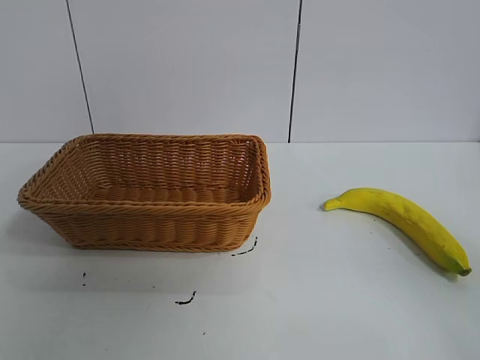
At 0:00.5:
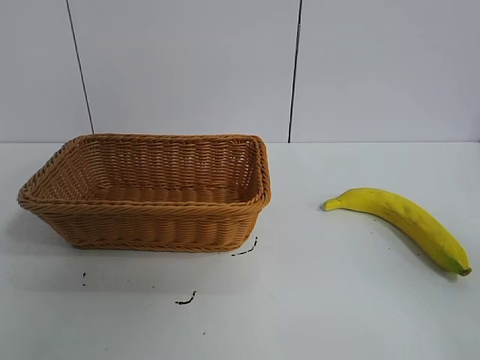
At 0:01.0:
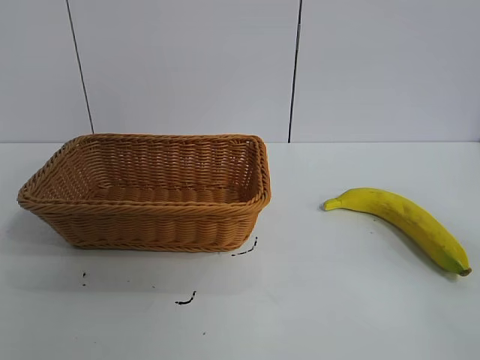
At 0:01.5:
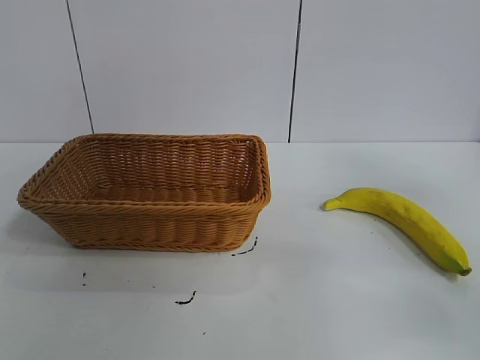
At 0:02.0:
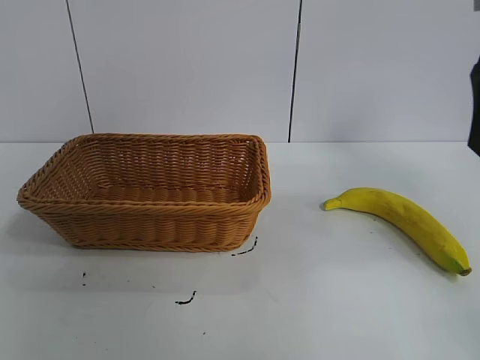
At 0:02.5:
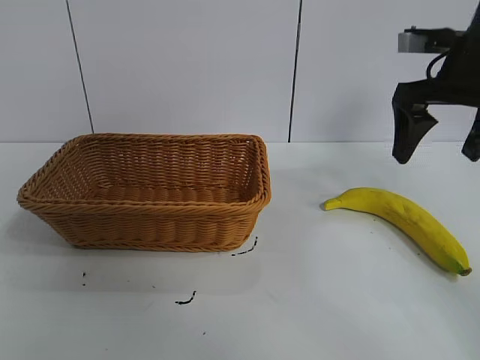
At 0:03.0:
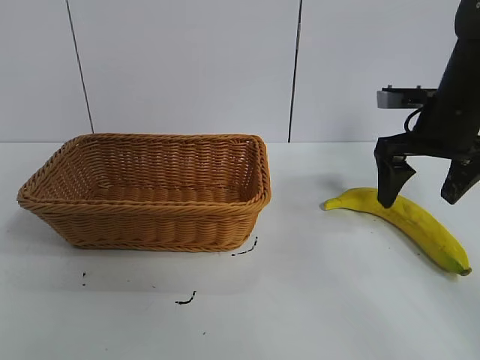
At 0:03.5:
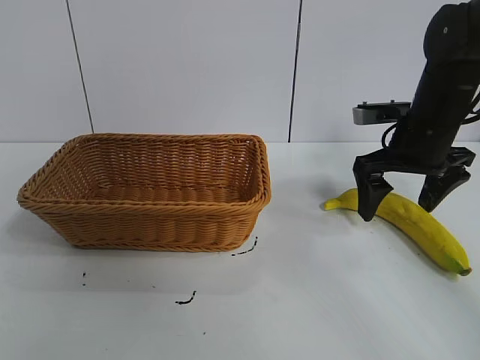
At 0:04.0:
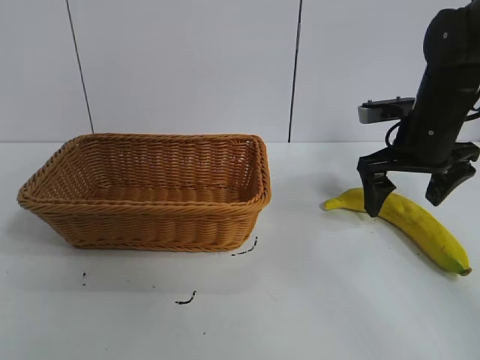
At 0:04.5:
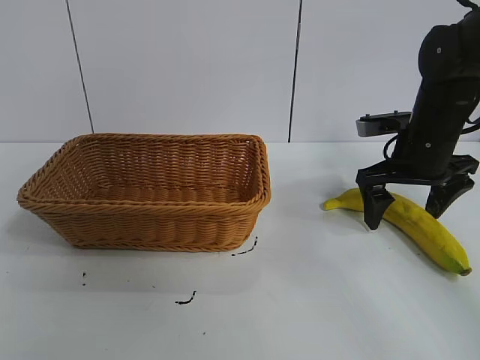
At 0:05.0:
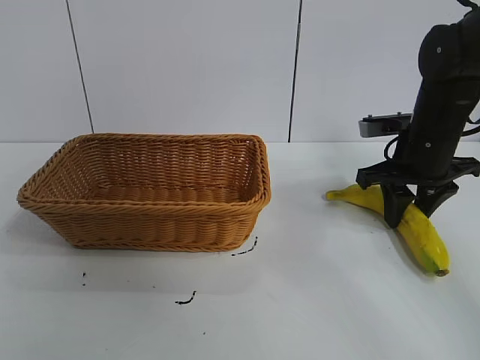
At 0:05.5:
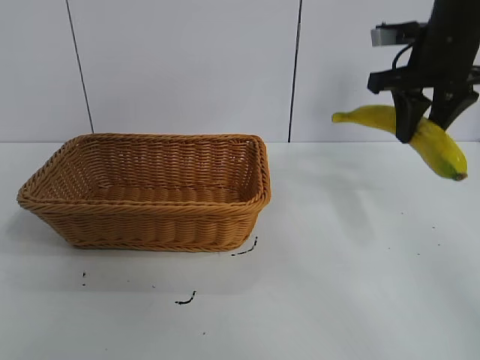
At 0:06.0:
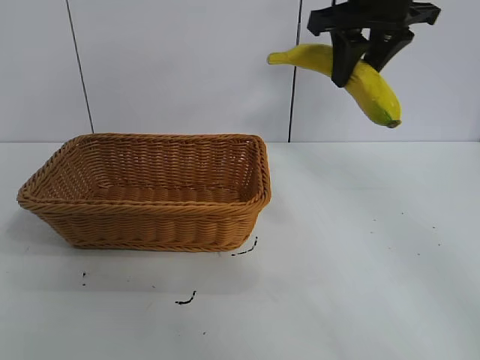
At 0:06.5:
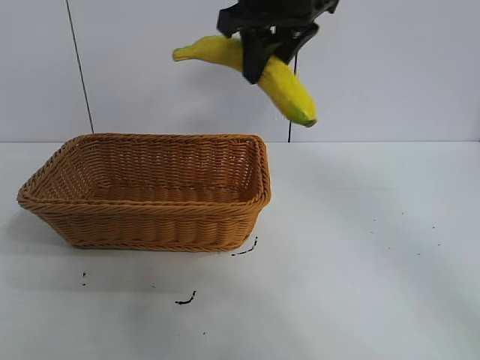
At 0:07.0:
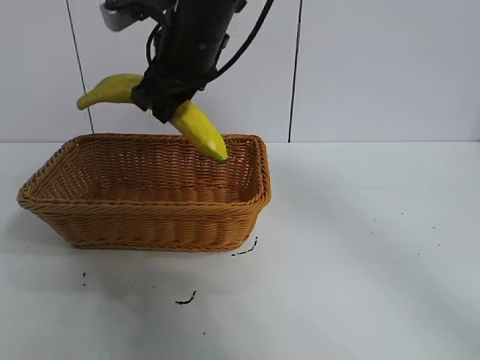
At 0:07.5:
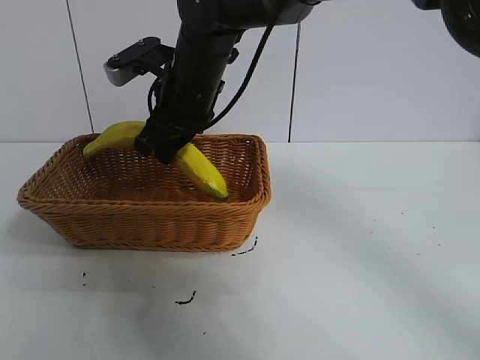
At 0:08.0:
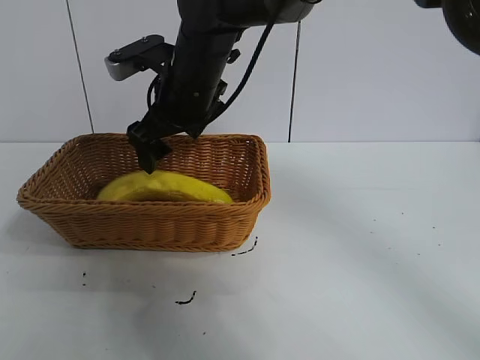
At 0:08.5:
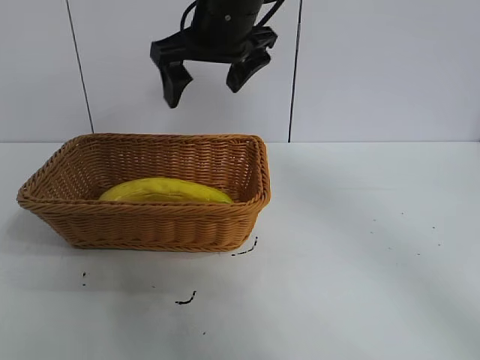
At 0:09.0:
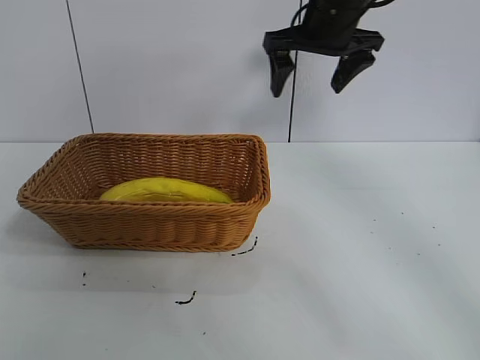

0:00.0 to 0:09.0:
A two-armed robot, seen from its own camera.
Task of the whole recording: pick up the banana and put it into the basket.
Step, 0:01.0 to 0:05.0: Grasp the banana with right gripper.
Step, 0:05.5 to 0:07.5: Place the banana in the basket with right gripper.

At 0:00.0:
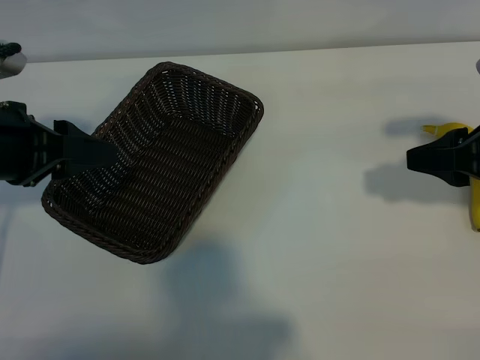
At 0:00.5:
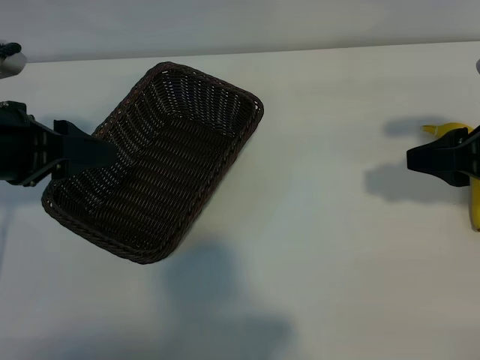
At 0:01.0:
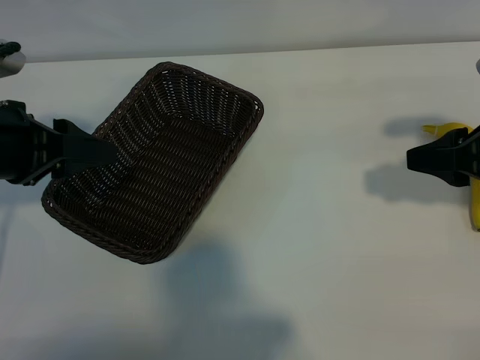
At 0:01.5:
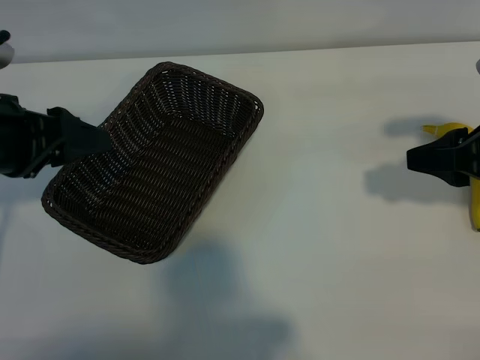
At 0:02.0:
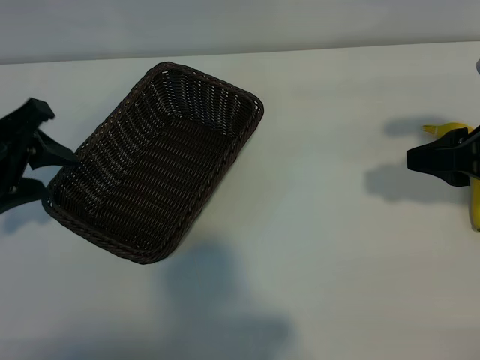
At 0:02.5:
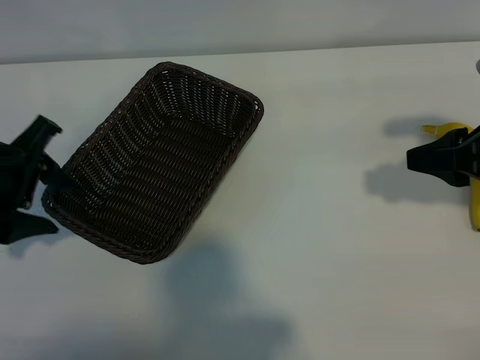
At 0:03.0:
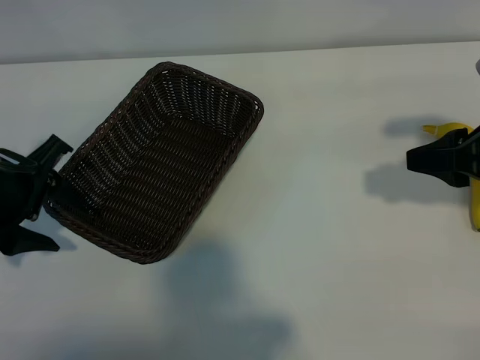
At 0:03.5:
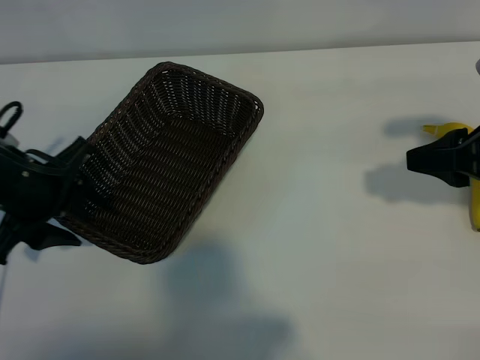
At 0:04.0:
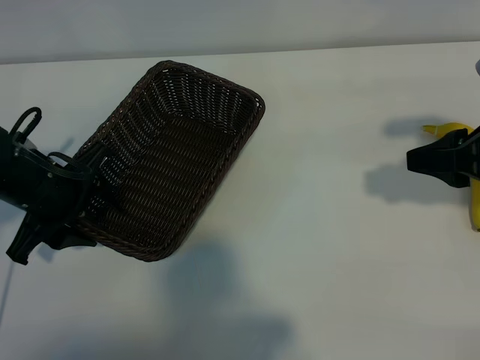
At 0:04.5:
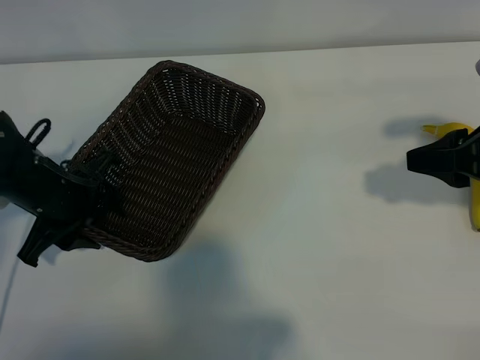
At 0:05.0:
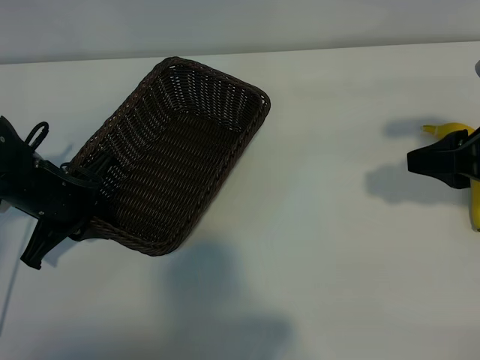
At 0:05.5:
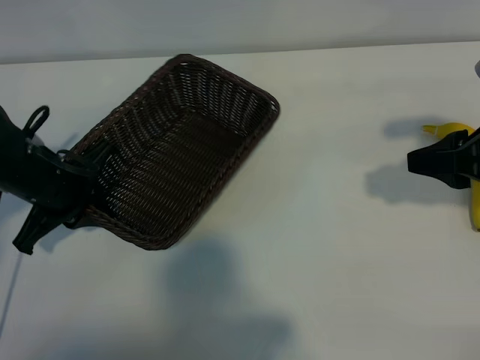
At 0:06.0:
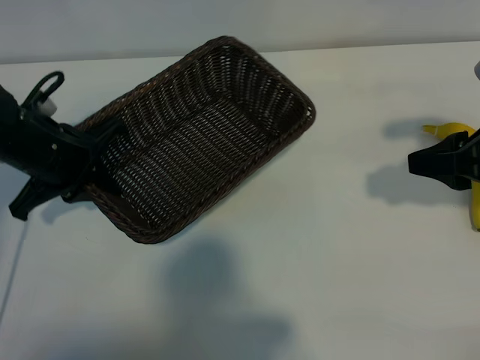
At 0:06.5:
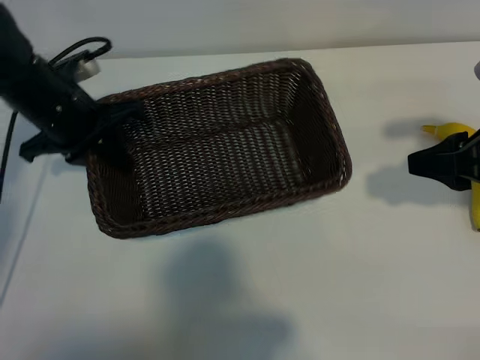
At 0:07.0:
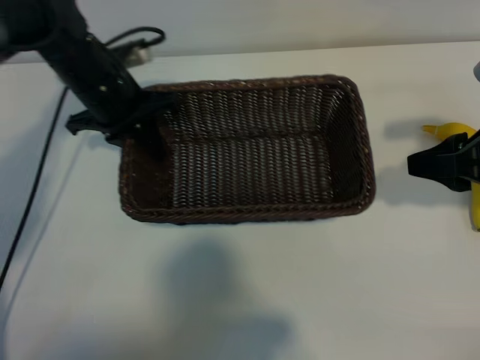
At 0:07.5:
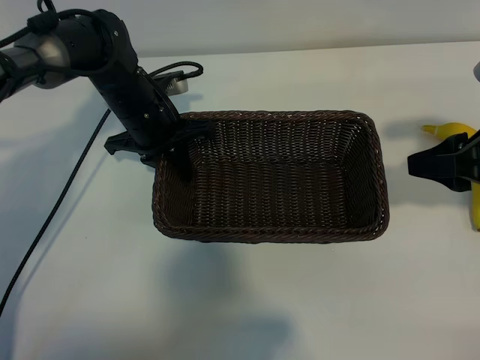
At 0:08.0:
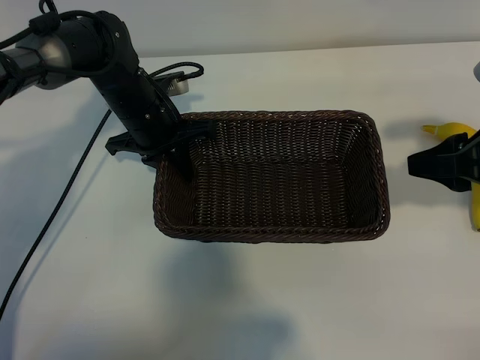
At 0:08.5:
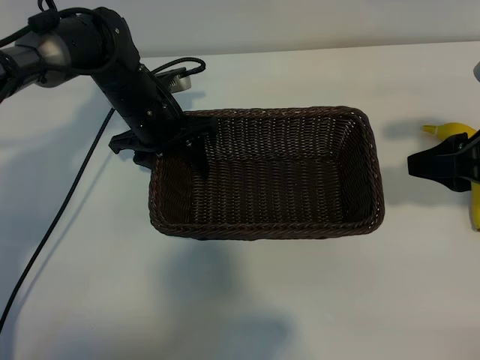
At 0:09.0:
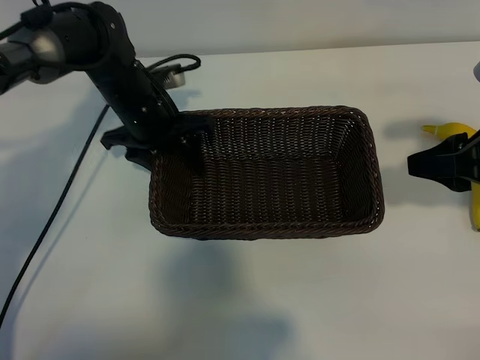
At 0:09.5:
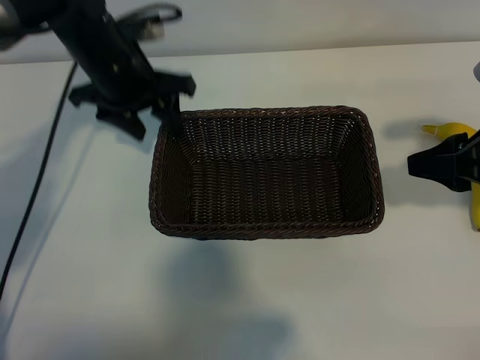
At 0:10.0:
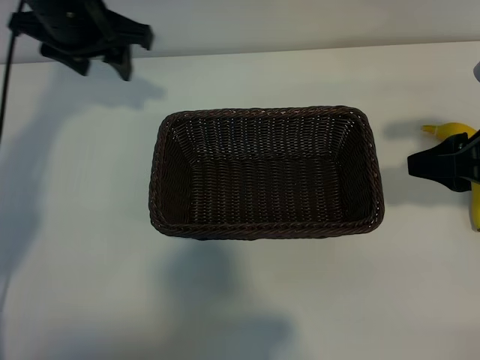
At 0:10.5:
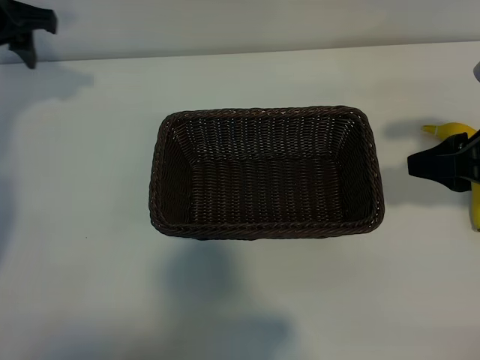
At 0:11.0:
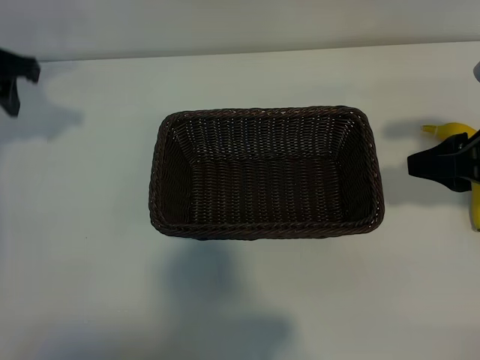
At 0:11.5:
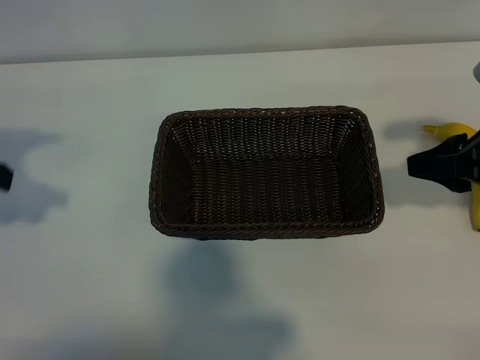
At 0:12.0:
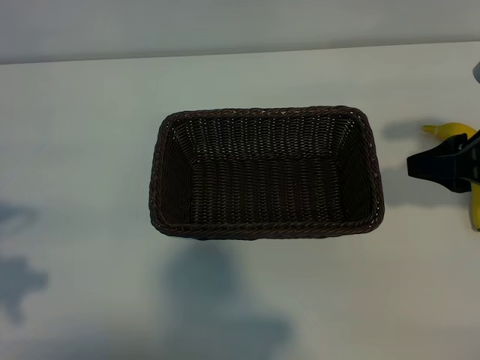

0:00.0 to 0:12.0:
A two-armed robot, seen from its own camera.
Task of the whole recording: pick up the banana and put it into the basket.
Step, 0:01.0 to 0:04.5: Grasp the basket with the left gripper.
Step, 0:05.0 to 0:09.0: Place the basket in the center of the table with the left gripper.

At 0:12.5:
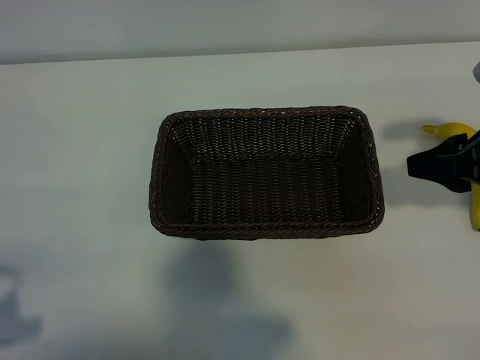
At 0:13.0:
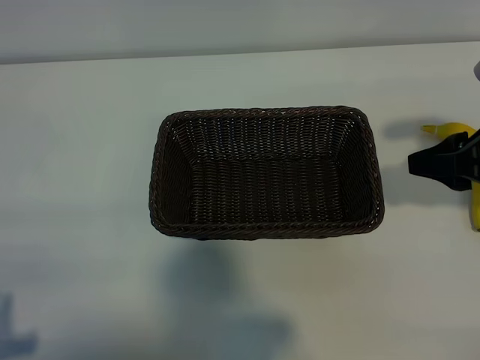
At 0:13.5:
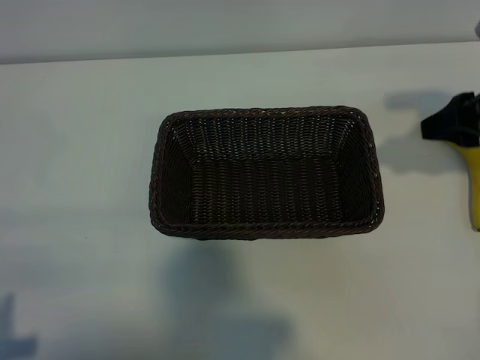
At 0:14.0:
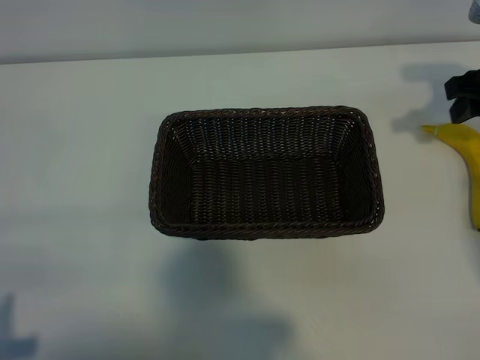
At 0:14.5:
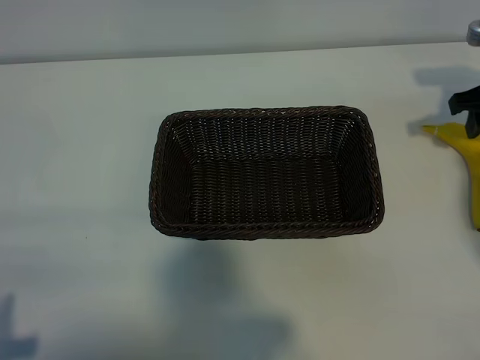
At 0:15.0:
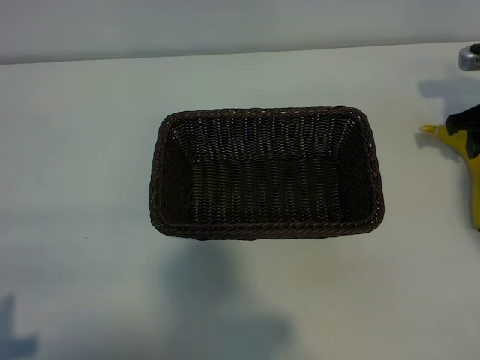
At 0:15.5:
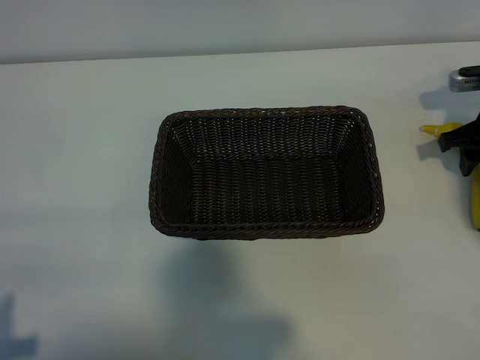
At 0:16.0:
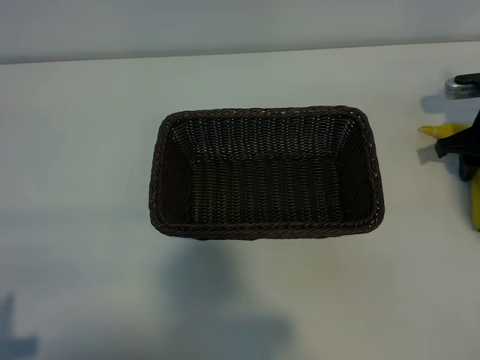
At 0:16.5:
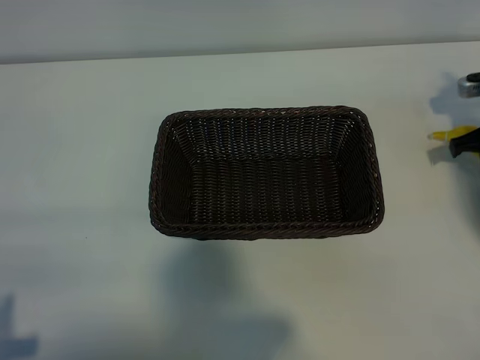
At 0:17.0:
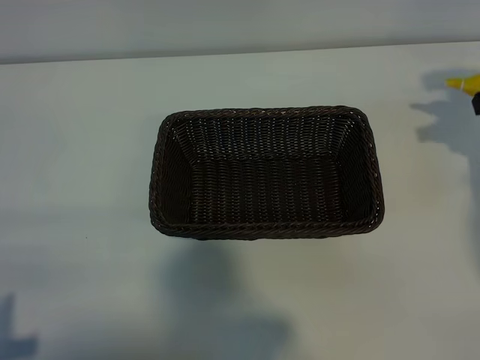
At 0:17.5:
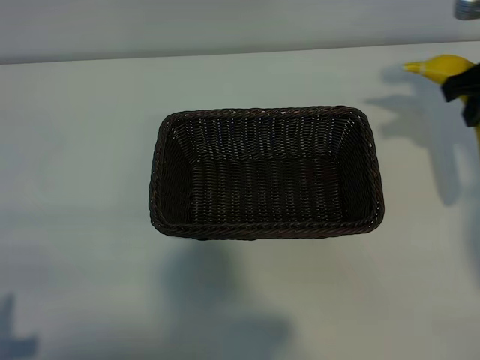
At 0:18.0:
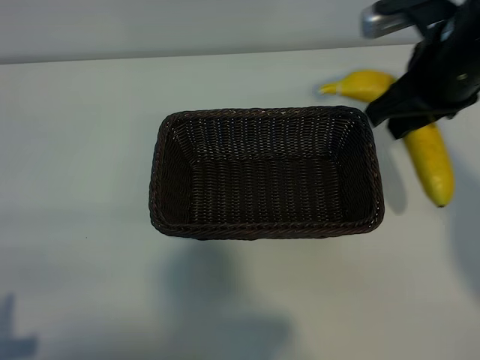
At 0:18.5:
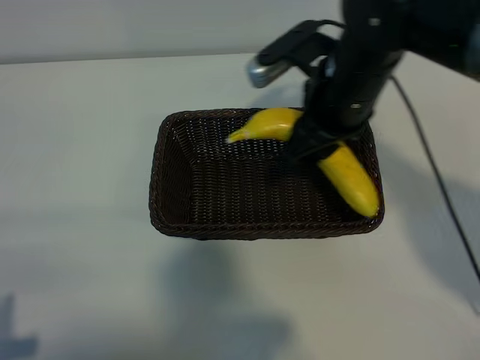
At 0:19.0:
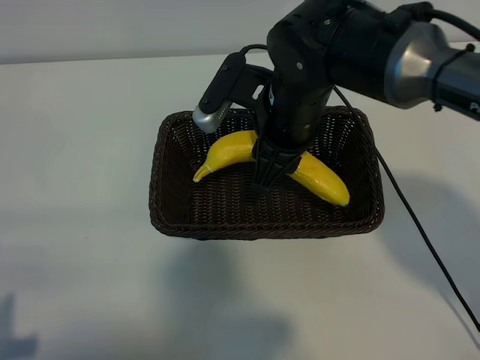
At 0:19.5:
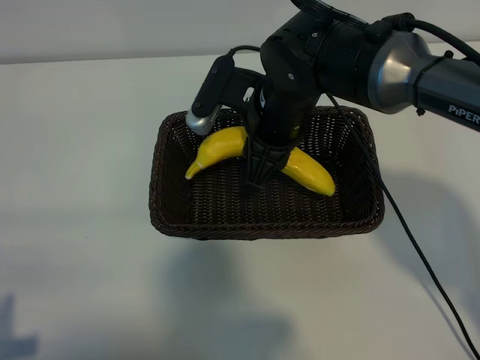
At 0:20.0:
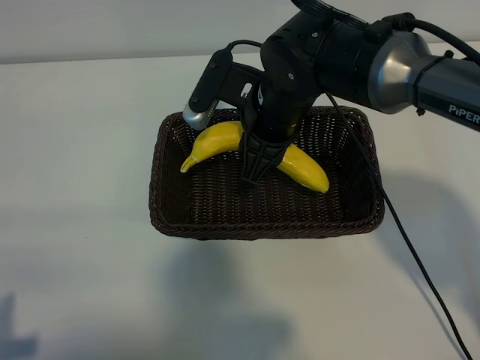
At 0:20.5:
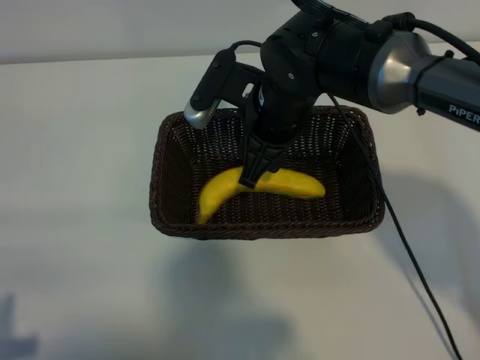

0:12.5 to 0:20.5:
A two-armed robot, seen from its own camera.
Task of the whole recording: pick up the banana and put it into the basket.
Step, 0:12.5 to 0:16.0: Grasp the banana with right gripper.
